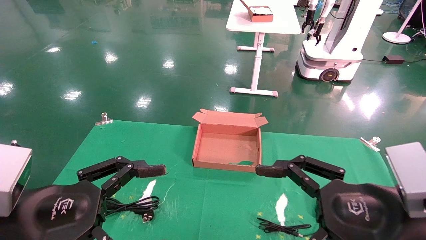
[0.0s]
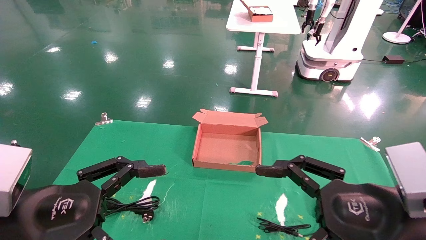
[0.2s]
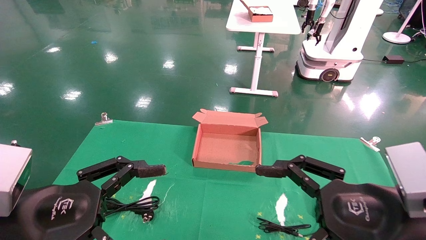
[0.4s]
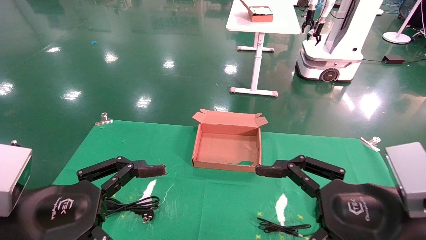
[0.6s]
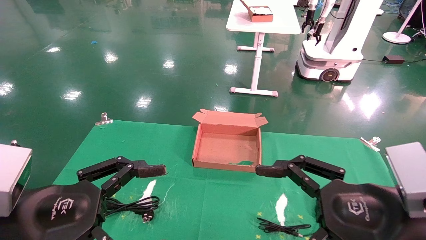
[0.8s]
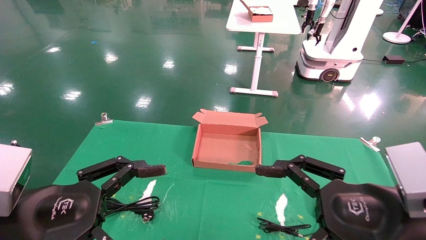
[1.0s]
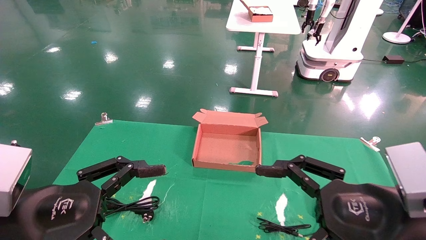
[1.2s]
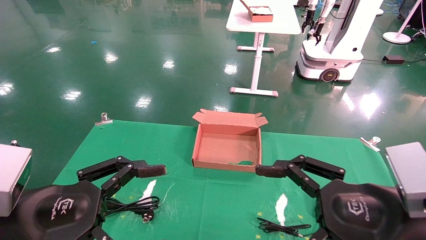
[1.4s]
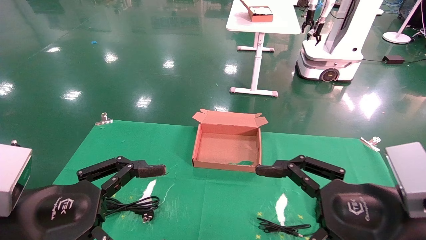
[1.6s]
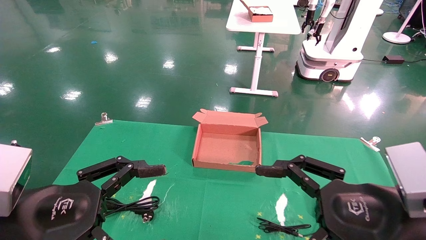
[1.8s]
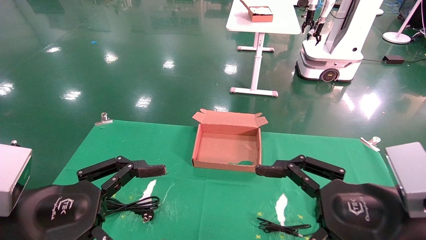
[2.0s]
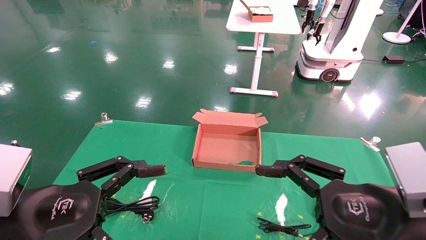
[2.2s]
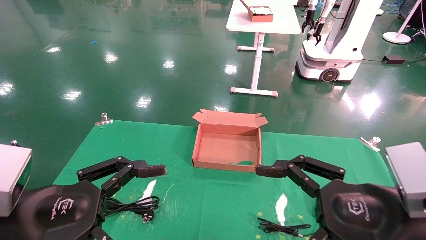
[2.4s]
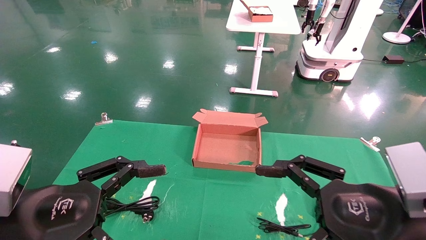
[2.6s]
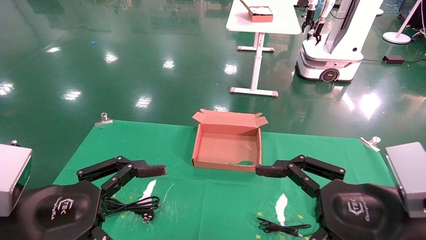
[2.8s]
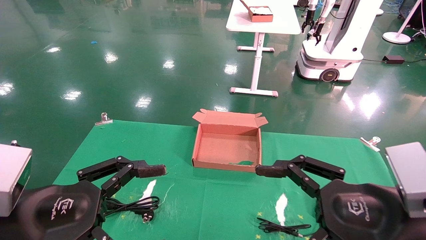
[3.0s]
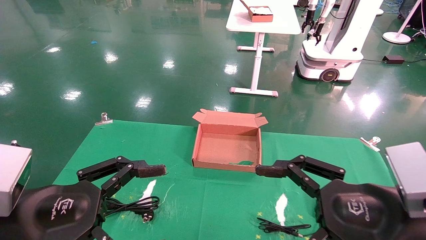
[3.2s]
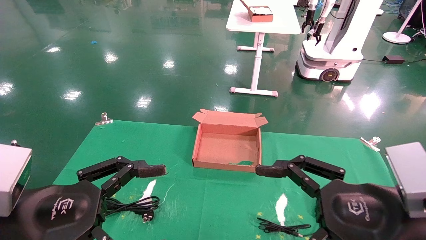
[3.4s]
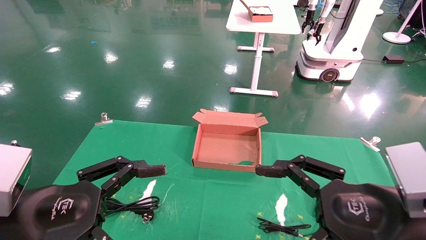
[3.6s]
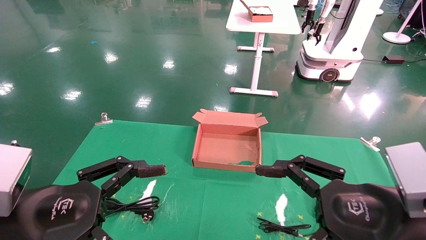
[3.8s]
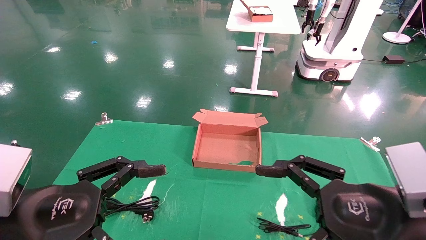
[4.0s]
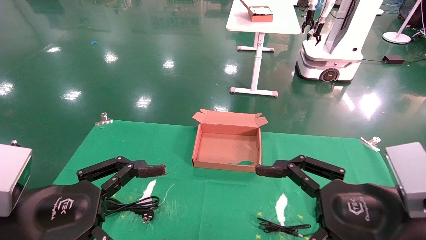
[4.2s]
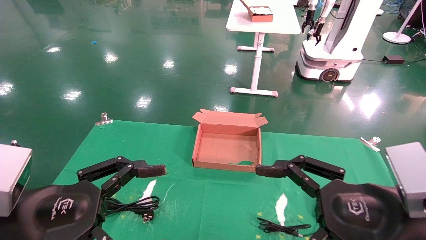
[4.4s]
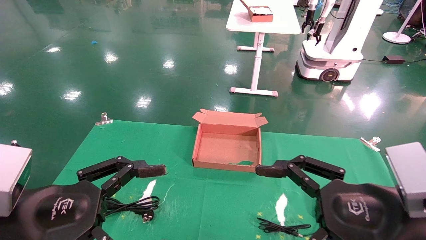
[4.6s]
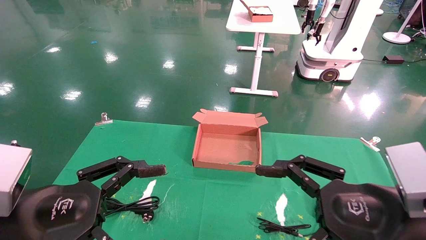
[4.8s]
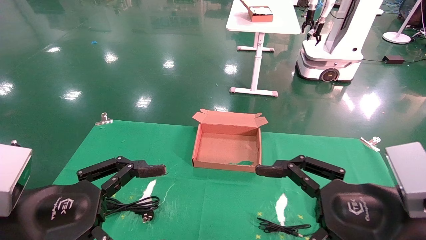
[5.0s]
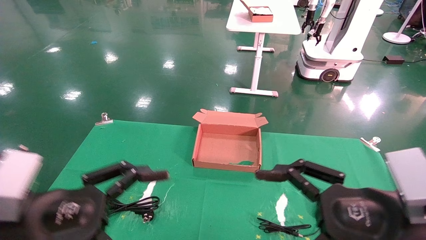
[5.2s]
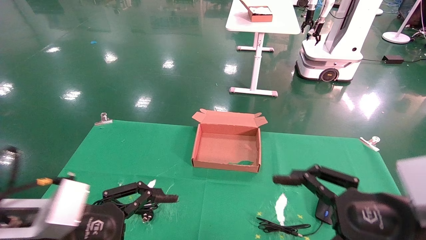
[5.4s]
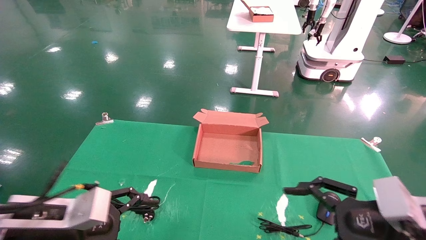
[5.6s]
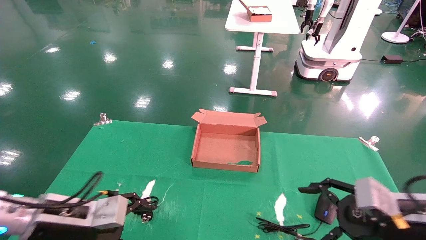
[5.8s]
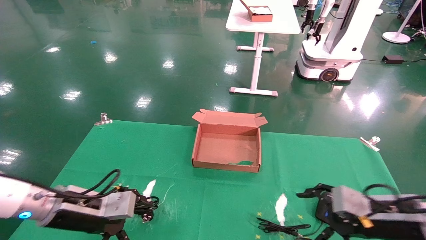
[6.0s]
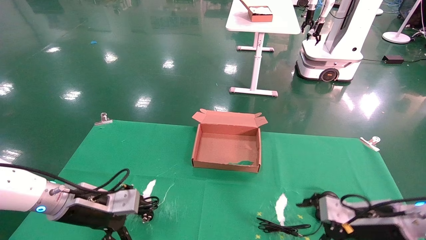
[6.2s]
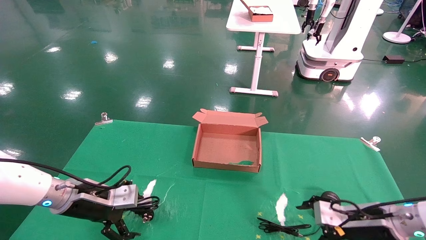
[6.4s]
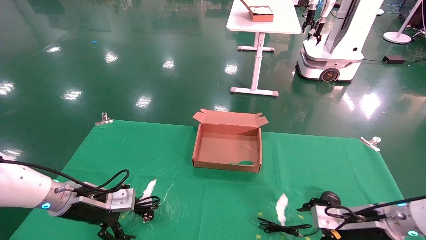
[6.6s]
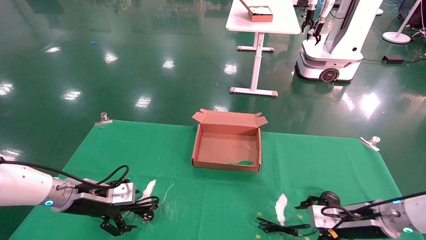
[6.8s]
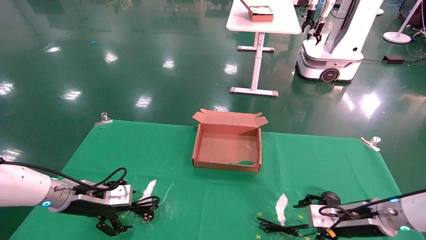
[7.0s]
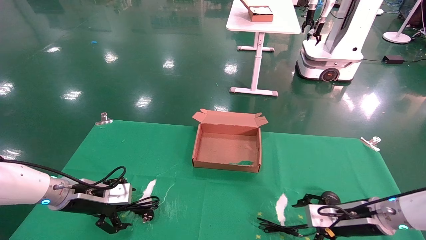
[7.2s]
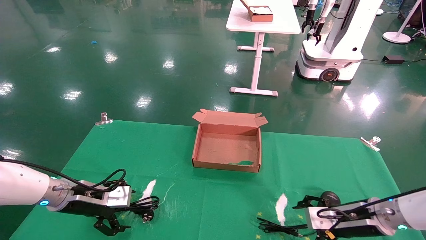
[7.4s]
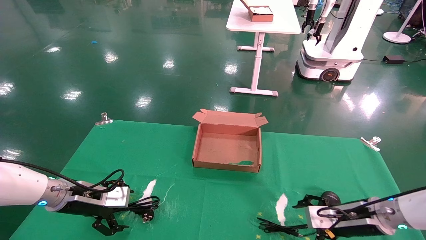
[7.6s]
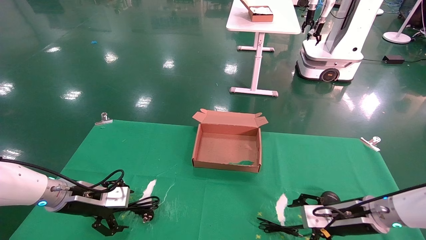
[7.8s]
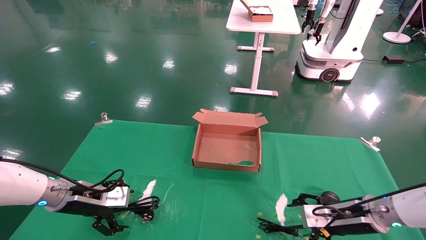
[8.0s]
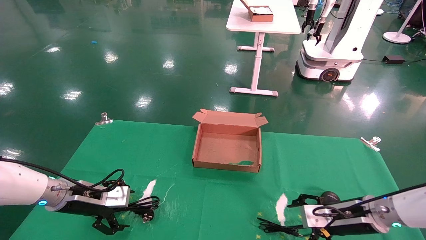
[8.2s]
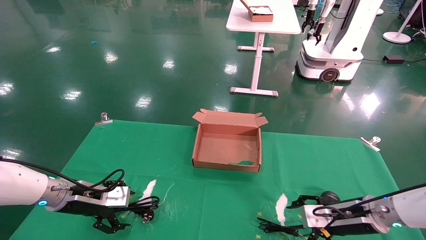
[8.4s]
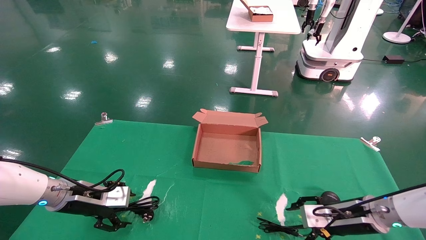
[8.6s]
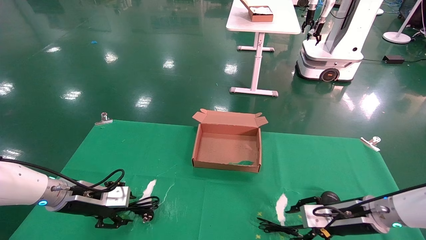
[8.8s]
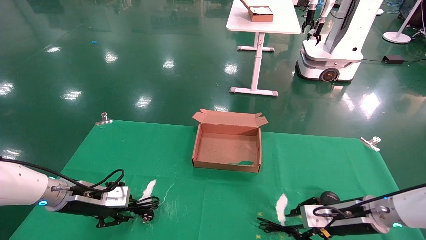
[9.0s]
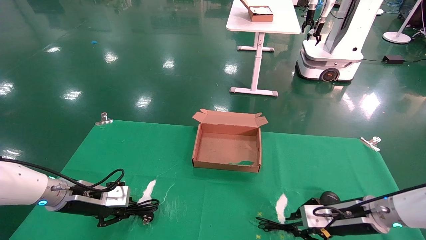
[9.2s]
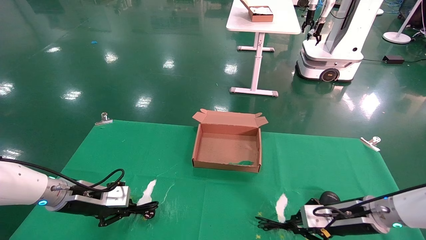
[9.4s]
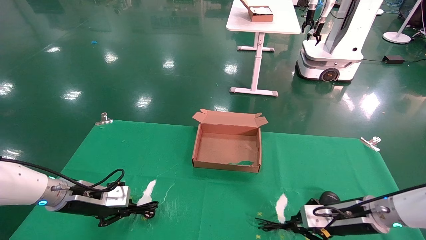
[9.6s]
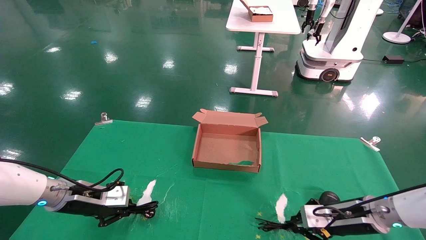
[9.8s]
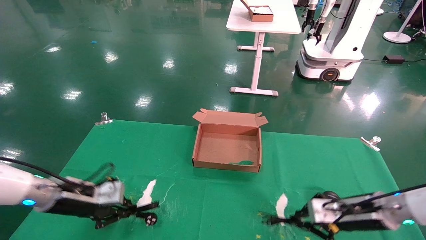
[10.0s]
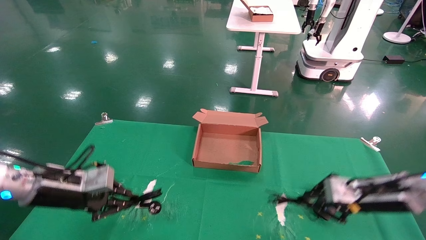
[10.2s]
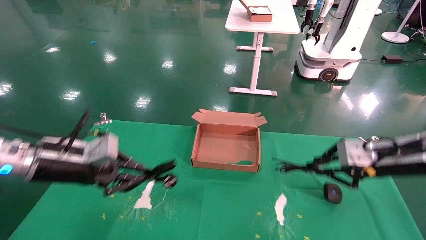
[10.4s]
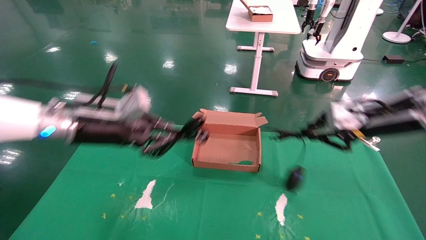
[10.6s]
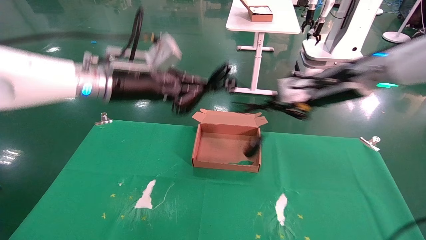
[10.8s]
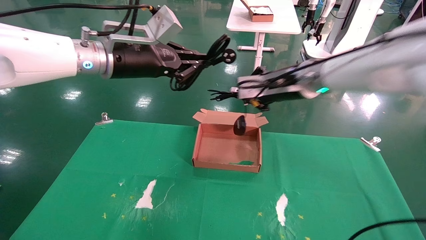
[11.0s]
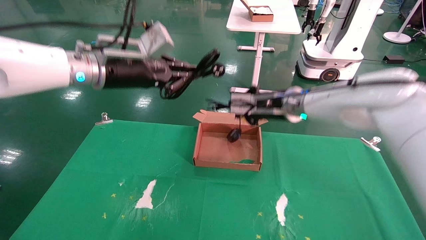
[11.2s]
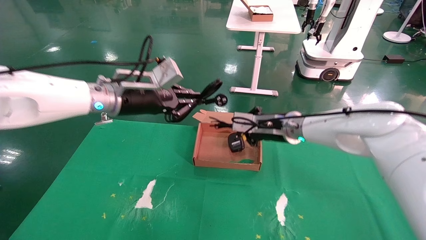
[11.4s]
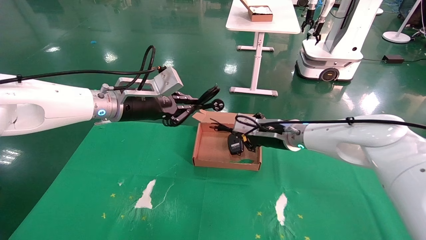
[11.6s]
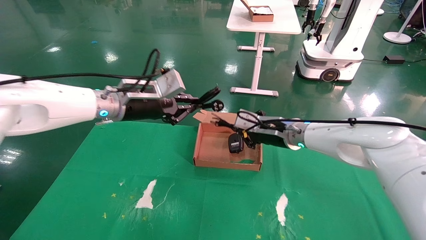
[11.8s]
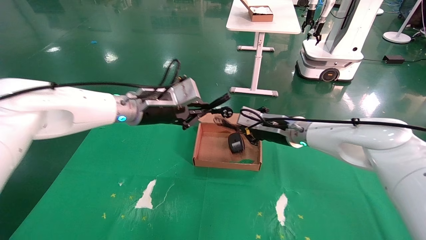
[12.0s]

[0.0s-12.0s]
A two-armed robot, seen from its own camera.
Step, 4.8s to 9.4s: Grab and lift both the mouse and power cord from the accessory packaging area at the same time.
0.0s to 4.4s: Neither gripper changes place.
4.4s to 6.0s: The right gripper moves forward, downward and to the right, roughly 20 cm. The left gripper travels forward and downward by roughly 15 cm.
6.0s to 7.6s: Both grippers move forward, roughly 5 cm.
7.6s to 9.0s: The left gripper closes. The right gripper closes its fingers.
9.0s to 10.4s: The two grippers go about 15 cm upward. The left gripper closes. The right gripper closes its fingers.
10.4s to 12.0s: The left gripper moves to the right, forward and upward, some 15 cm, while the right gripper shifts about 20 cm to the left and forward.

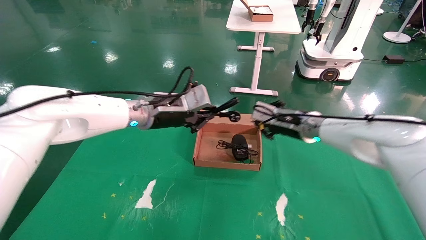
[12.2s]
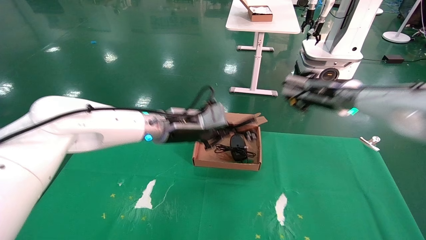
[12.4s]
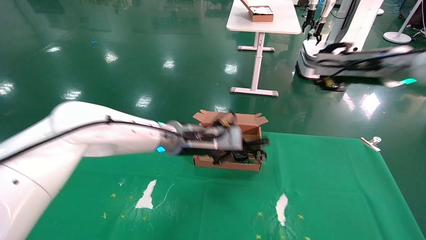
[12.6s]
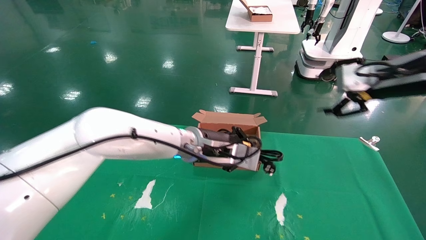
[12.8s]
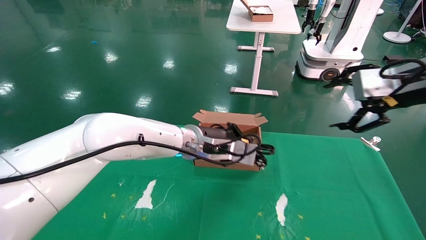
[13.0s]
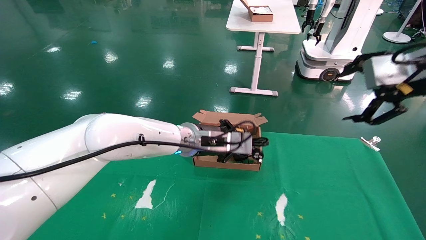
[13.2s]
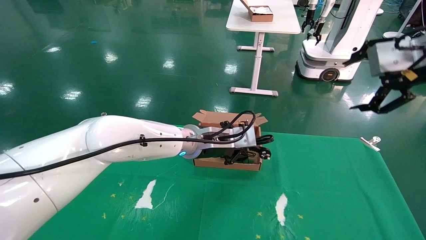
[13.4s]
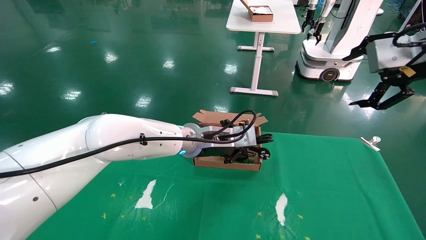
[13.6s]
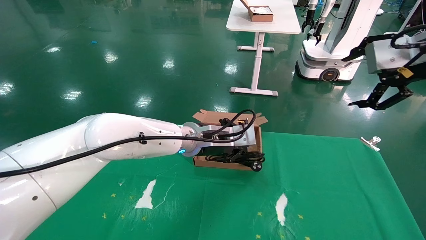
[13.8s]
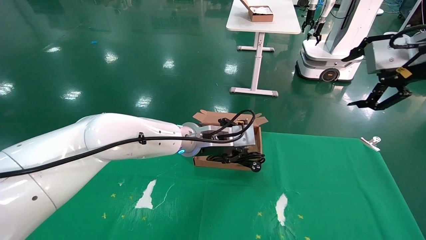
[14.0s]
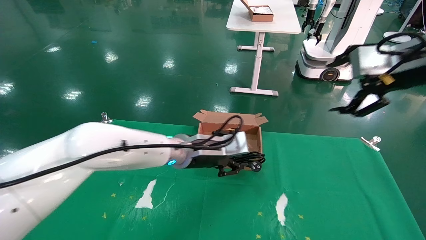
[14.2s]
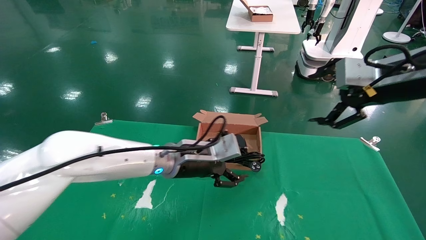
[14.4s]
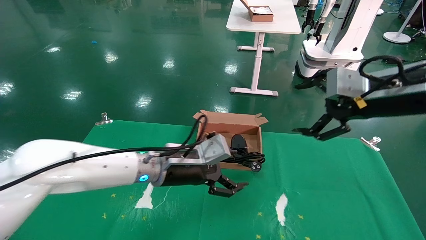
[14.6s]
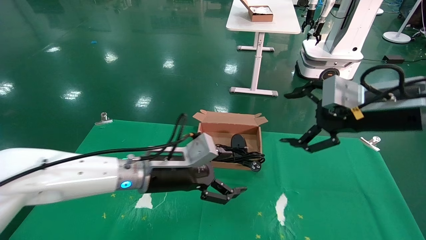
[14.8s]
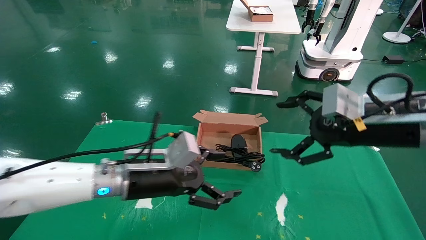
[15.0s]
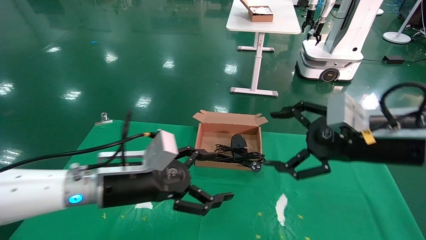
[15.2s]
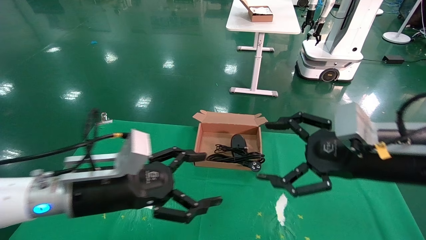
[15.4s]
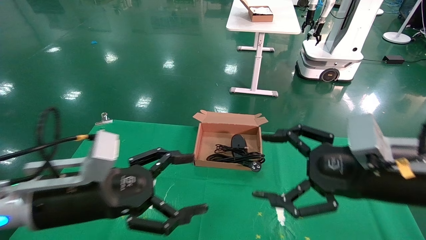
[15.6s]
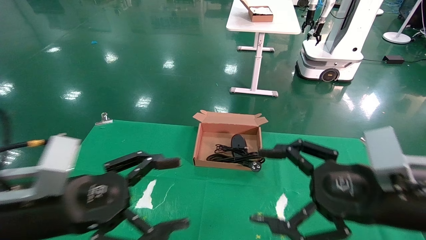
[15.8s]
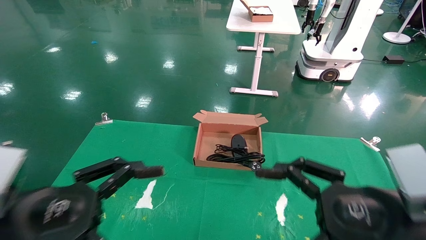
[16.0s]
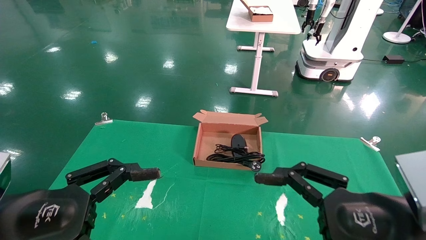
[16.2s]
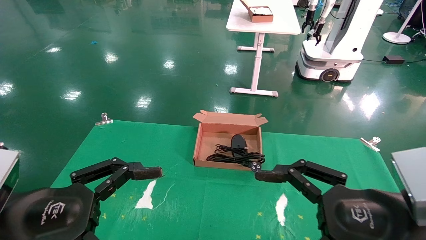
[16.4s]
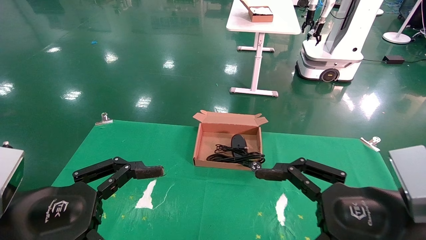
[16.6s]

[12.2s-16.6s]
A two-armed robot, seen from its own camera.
12.2s to 13.6s: The left gripper shifts approximately 10 cm to the right and downward; the right gripper heads backward, upward and to the right, covering approximately 30 cm, and opens.
13.6s to 15.2s: The left gripper travels to the left and backward by about 20 cm, and opens. The right gripper goes approximately 15 cm downward and to the left.
15.2s to 16.6s: The right gripper shifts roughly 10 cm backward and downward, while the left gripper moves backward and to the left, some 15 cm.
